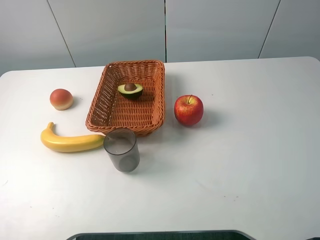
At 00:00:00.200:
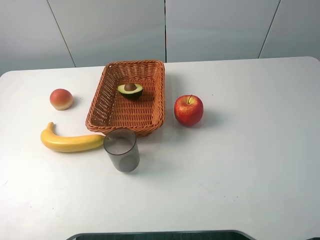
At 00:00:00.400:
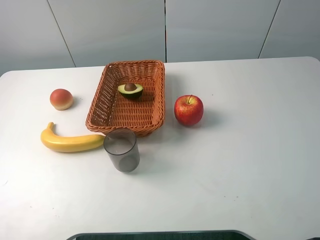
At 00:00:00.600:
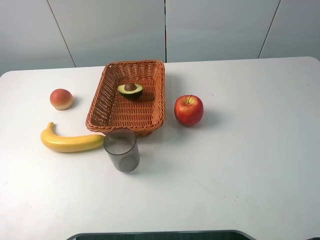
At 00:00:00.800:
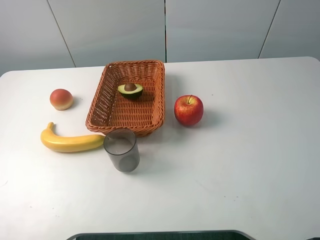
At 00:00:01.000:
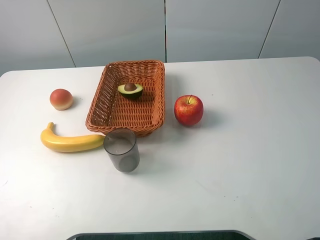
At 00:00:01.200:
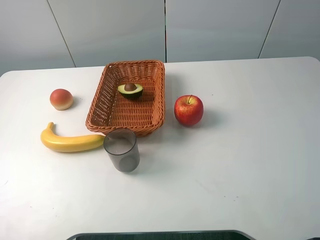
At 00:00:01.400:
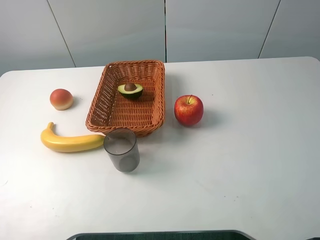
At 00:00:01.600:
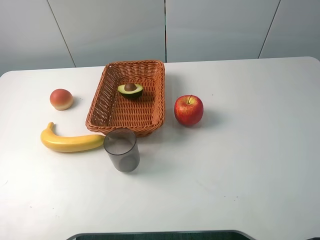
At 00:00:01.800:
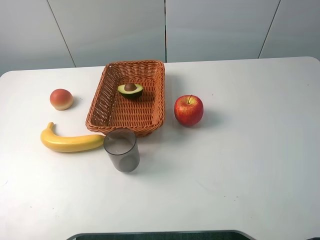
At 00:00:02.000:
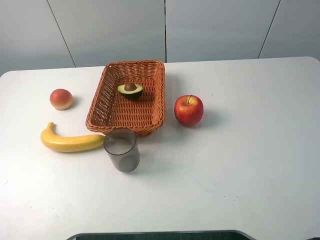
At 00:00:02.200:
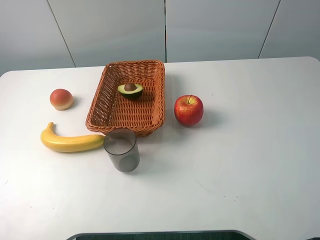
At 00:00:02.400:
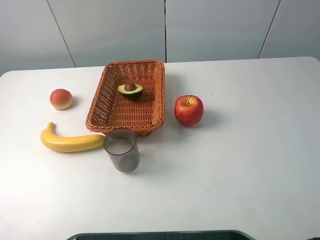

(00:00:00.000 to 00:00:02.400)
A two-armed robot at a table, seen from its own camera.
00:00:01.200 - 00:00:02.400: Both grippers stay put.

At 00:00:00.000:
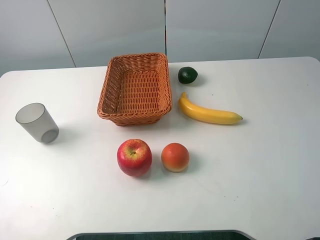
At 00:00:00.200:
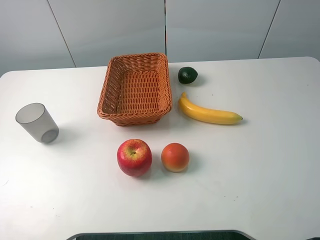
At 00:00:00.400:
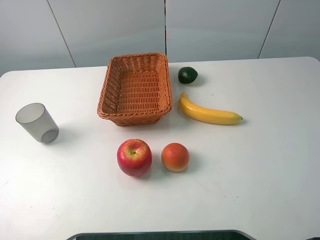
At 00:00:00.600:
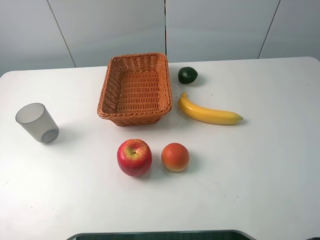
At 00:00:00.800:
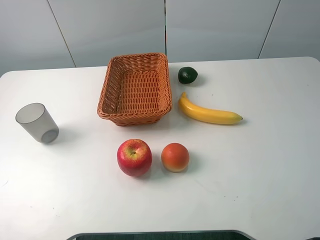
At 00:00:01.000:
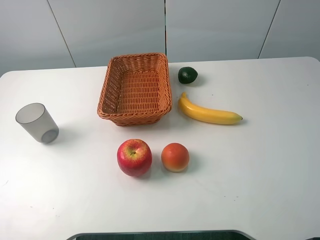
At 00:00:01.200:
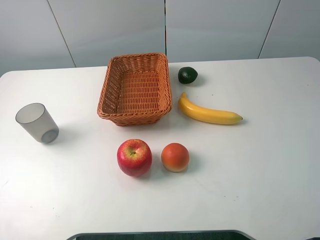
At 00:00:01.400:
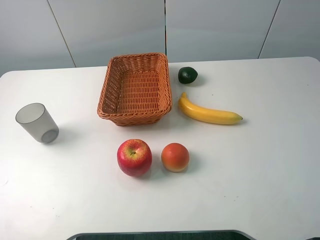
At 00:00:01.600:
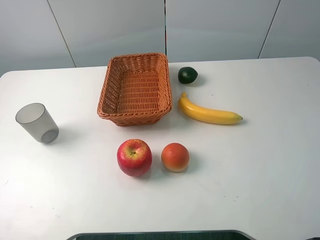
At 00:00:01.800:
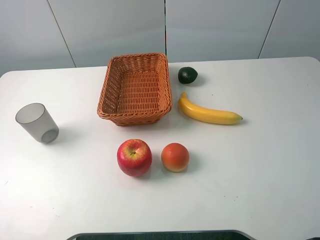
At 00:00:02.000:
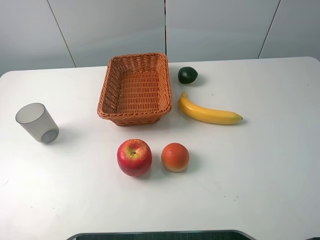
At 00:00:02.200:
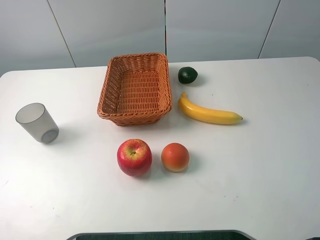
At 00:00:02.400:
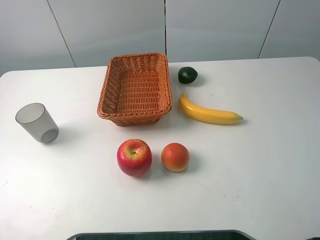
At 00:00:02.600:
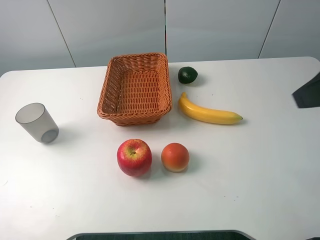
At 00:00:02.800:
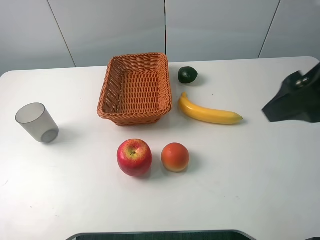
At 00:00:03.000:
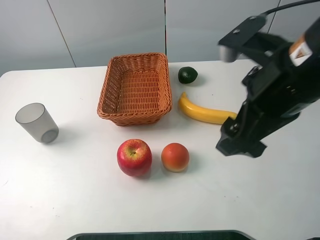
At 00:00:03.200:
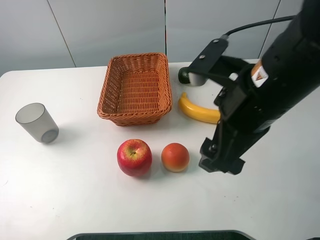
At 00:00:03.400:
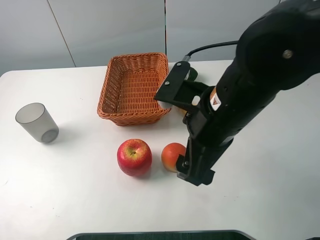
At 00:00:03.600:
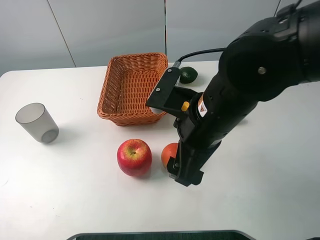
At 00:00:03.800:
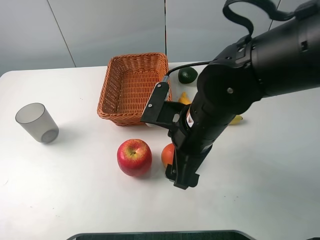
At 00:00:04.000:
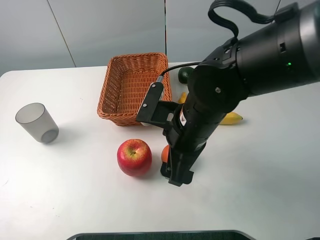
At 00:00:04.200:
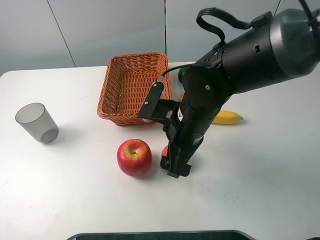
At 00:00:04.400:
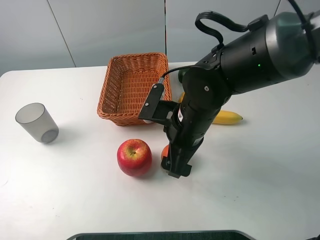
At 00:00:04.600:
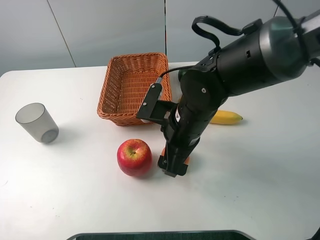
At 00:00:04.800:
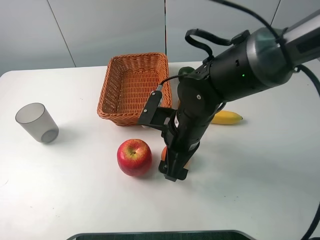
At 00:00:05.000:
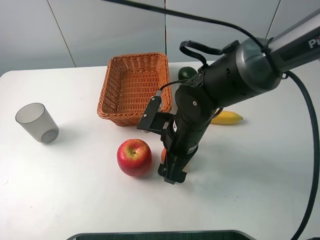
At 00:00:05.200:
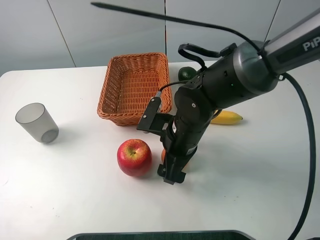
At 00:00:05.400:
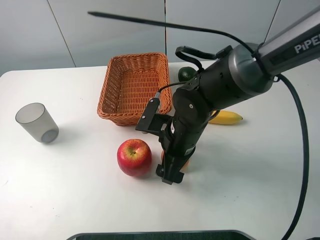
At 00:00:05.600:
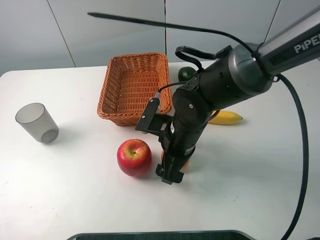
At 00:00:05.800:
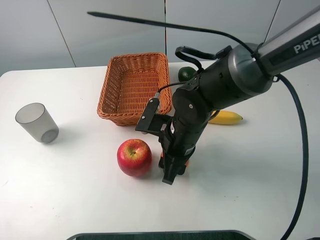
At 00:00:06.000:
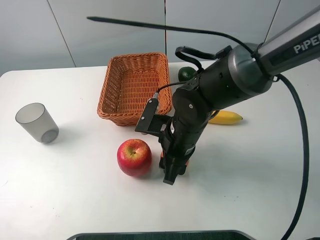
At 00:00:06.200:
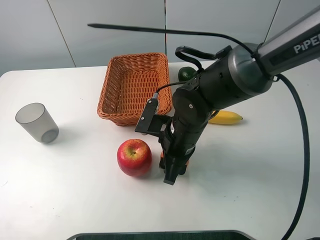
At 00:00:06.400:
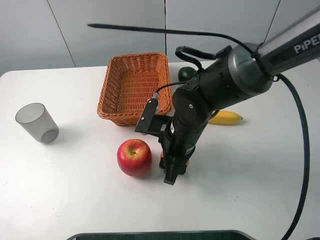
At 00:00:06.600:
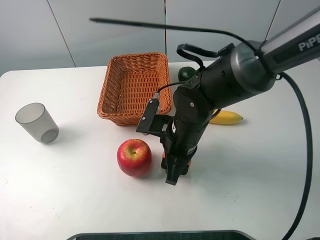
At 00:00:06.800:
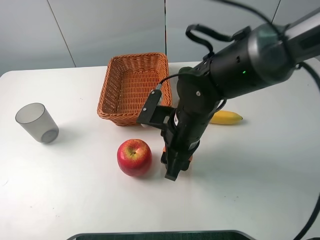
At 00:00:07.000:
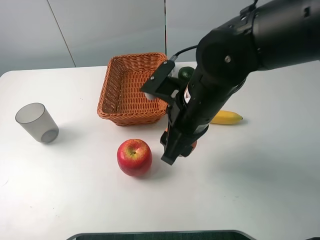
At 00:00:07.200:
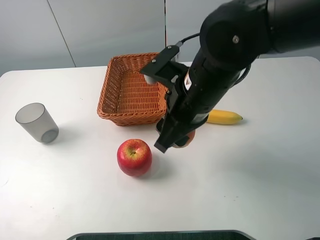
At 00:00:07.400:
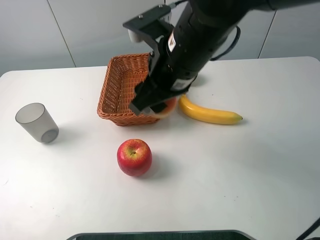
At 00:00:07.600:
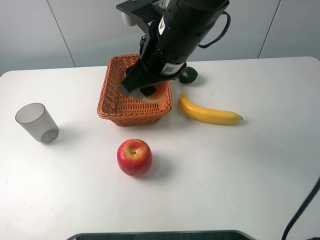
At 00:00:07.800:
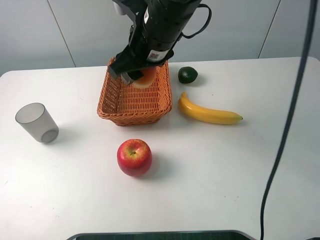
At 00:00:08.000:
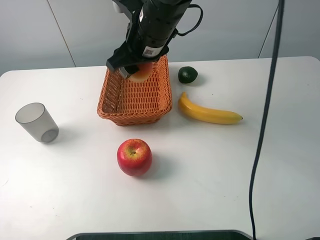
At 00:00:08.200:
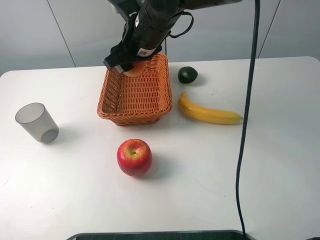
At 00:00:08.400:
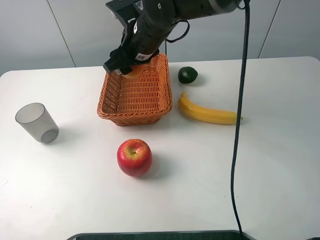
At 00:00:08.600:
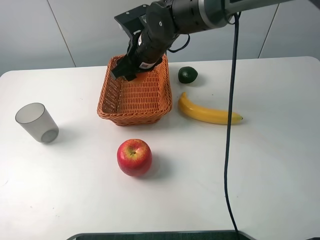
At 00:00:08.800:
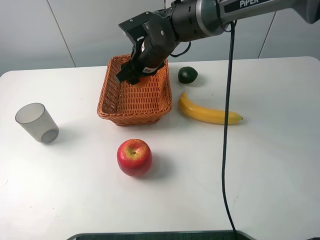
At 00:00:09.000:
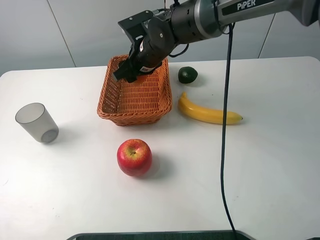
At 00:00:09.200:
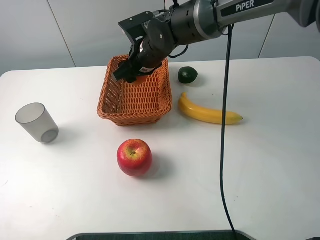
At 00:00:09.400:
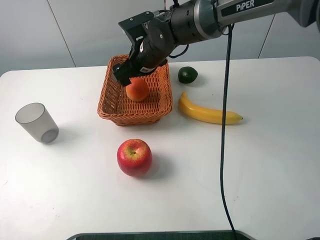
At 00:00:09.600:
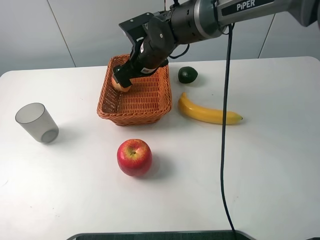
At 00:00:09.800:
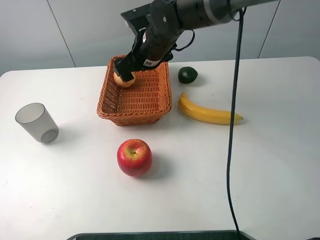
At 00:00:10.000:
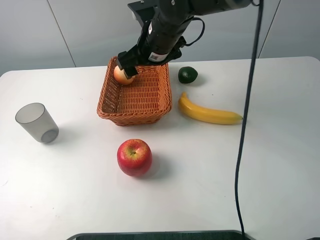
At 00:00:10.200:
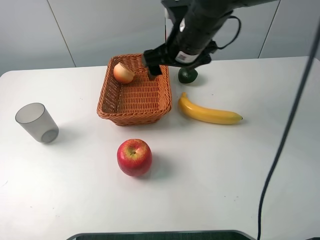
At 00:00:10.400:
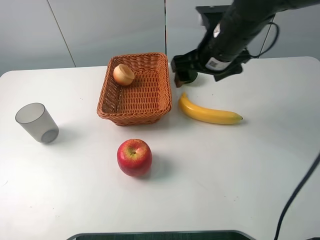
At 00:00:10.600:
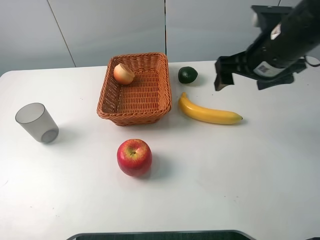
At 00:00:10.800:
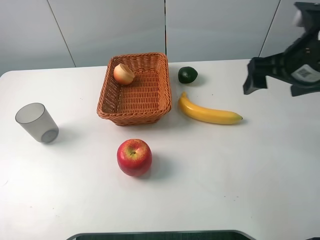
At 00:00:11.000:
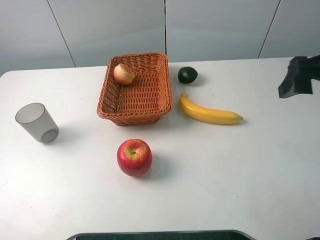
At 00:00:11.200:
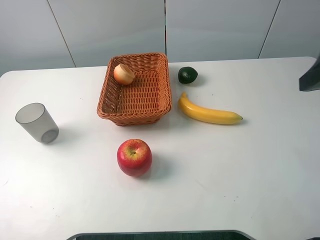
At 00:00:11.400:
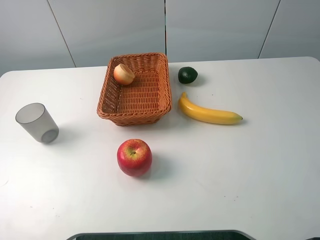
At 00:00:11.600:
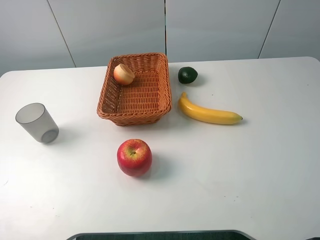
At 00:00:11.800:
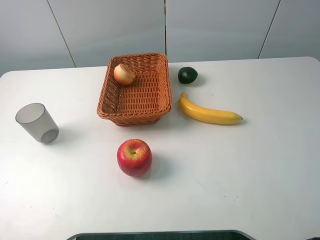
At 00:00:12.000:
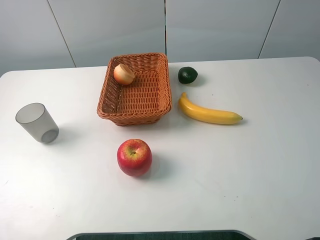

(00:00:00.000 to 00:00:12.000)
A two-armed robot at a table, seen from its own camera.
00:00:00.000 - 00:00:01.600: The two grippers keep their place.
00:00:01.600 - 00:00:03.000: The right gripper shifts some 20 cm forward and to the left.
00:00:03.000 - 00:00:04.400: The right gripper goes roughly 15 cm downward and to the left.
00:00:04.400 - 00:00:06.000: The right gripper closes up.
00:00:06.000 - 00:00:07.600: The right gripper moves upward, about 15 cm.
00:00:07.600 - 00:00:09.000: The right gripper moves forward and downward, approximately 15 cm.
00:00:09.000 - 00:00:10.400: The right gripper is displaced to the right, backward and upward by approximately 20 cm, and opens.
00:00:10.400 - 00:00:12.000: The right gripper heads backward and to the right, covering roughly 35 cm.

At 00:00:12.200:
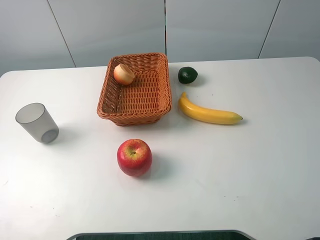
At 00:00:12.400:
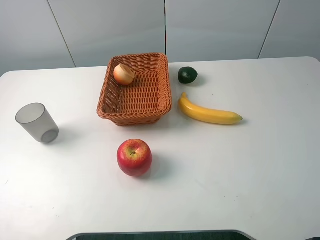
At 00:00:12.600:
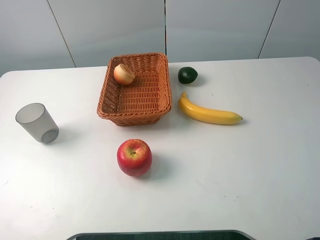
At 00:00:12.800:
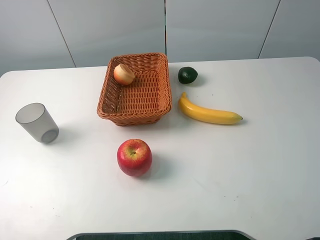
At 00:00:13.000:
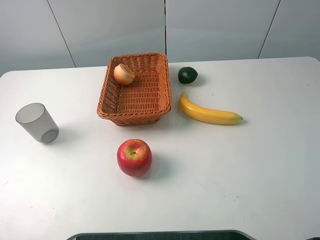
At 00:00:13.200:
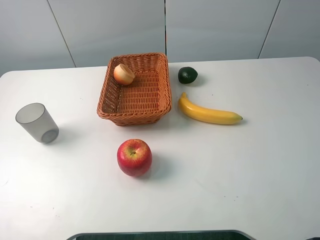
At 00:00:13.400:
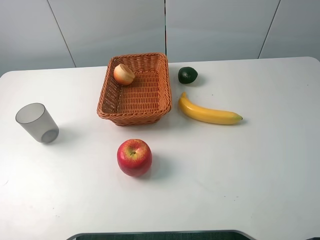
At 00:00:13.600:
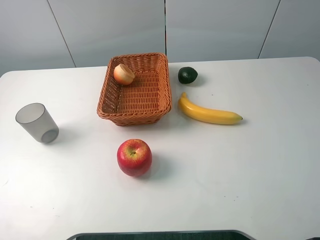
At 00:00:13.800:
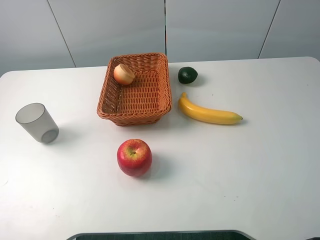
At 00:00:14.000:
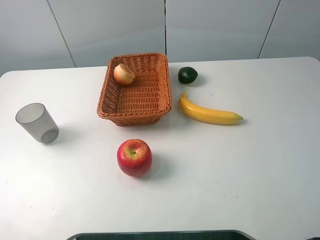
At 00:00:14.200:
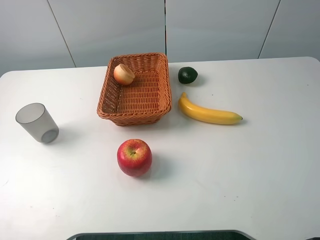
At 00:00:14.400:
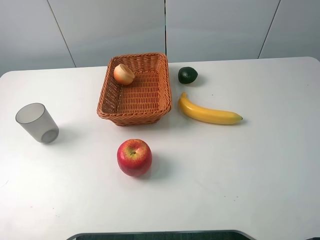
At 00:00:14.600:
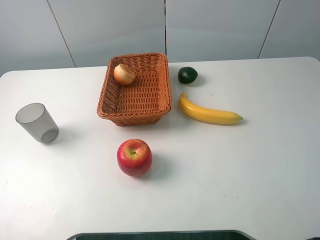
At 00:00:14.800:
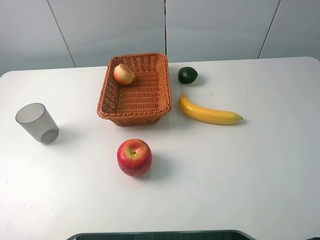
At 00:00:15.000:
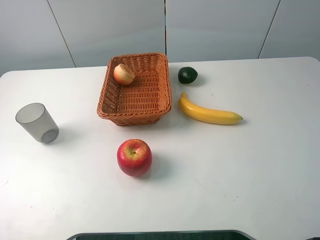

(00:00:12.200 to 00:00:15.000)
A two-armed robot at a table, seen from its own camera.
00:00:13.600 - 00:00:15.000: Both grippers stay put.
